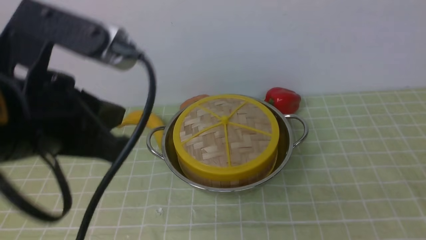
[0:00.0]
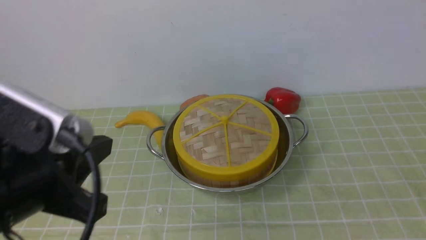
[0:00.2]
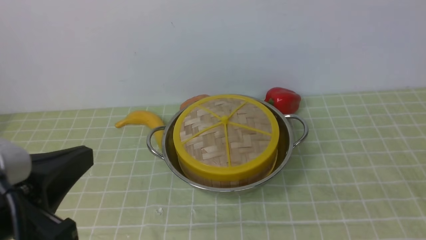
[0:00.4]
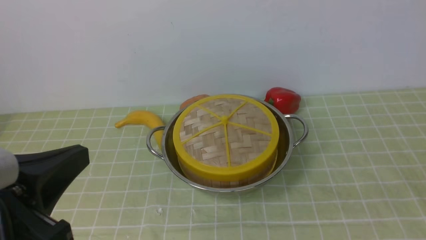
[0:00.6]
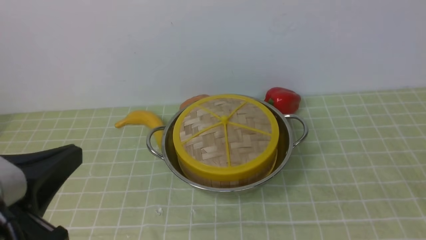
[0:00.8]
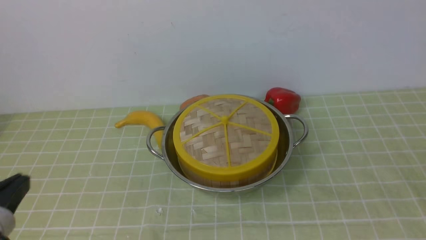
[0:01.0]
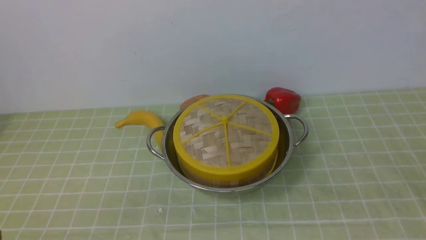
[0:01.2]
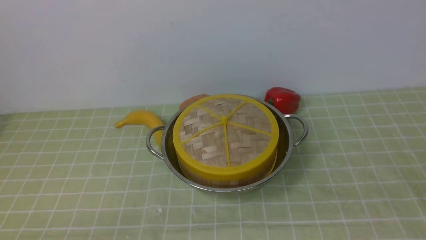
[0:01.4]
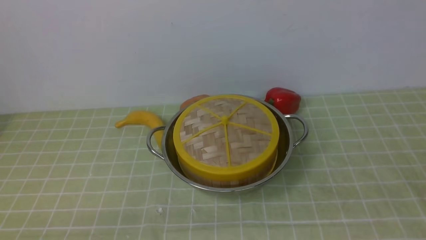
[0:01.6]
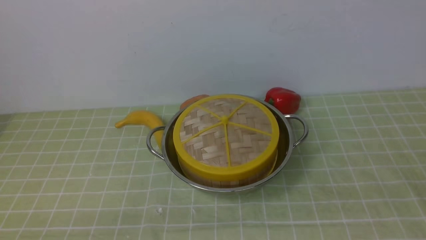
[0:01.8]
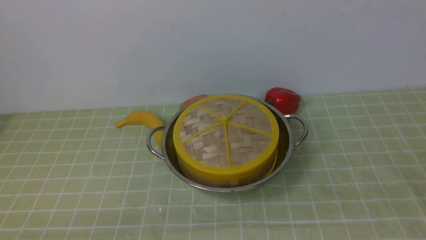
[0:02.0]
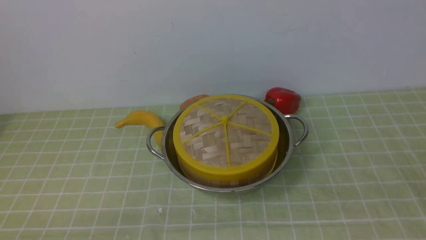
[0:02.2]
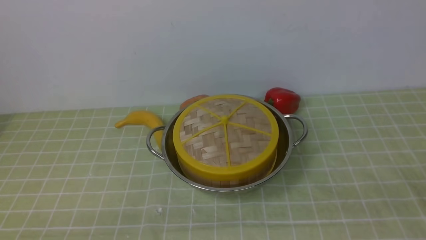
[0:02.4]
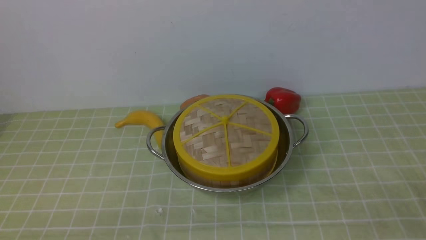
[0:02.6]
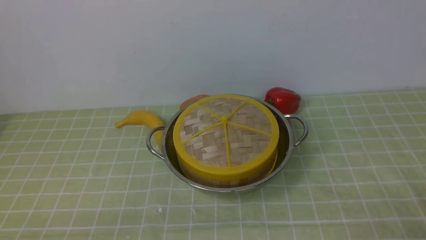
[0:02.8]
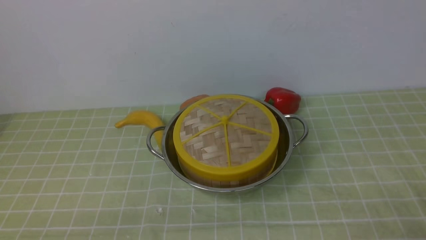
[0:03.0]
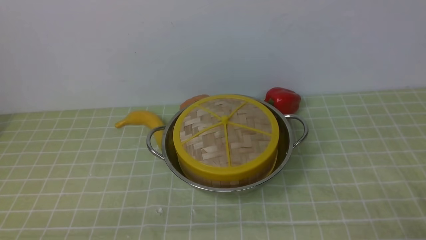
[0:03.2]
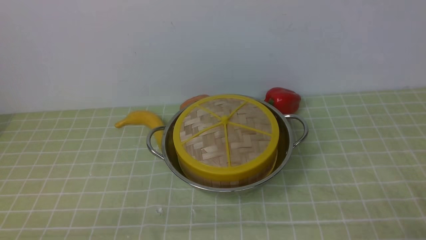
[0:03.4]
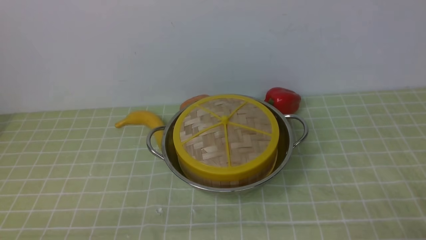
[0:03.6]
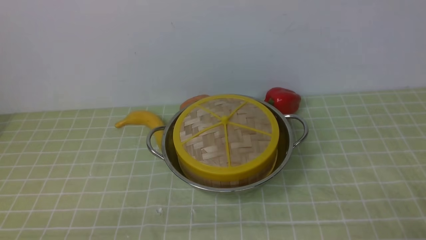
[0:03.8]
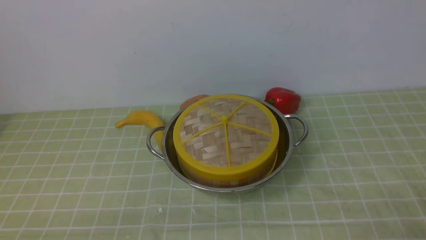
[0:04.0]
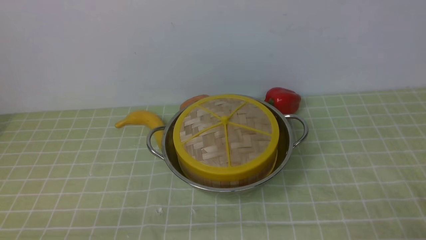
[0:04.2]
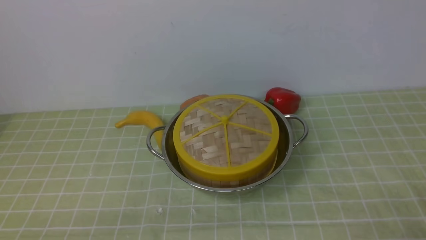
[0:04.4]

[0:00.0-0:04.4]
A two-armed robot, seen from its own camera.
Task of the whole recording: place the steamer in the pot on the green tablecloth, and put the lid on the steamer.
0:00.0 to 0:01.4: The left gripper goes roughly 25 cm downward, backward and to the left.
0:03.0 to 0:04.4: Both grippers stay put.
